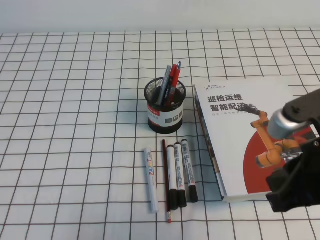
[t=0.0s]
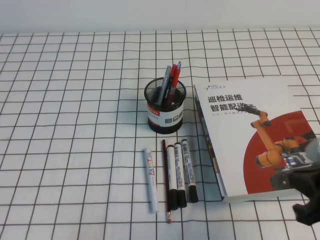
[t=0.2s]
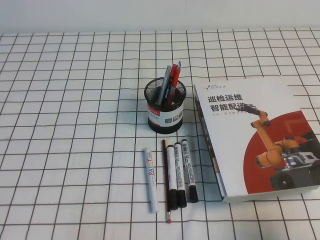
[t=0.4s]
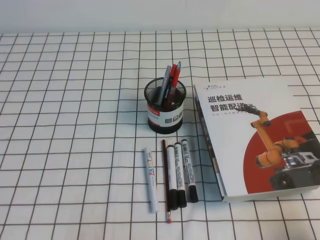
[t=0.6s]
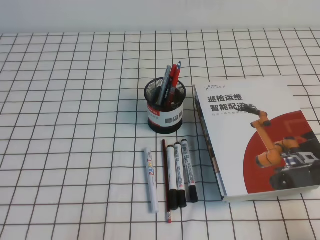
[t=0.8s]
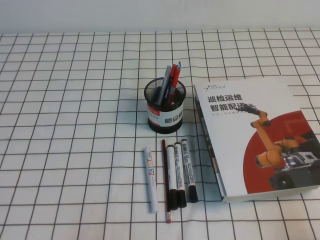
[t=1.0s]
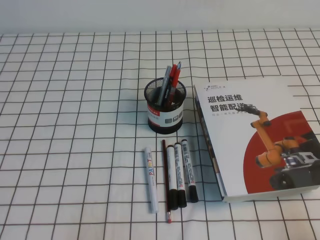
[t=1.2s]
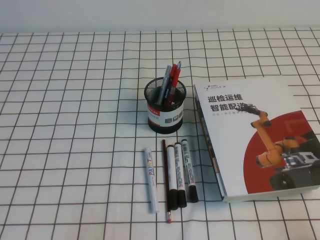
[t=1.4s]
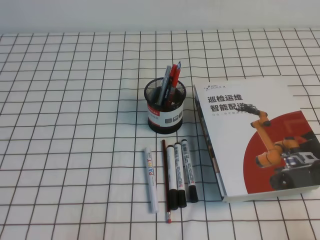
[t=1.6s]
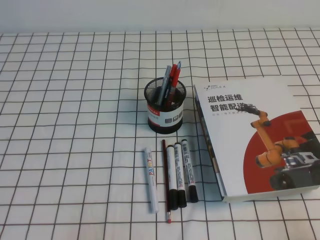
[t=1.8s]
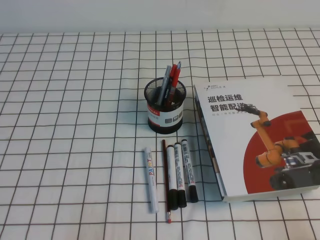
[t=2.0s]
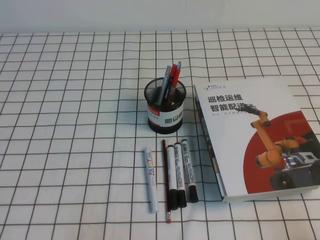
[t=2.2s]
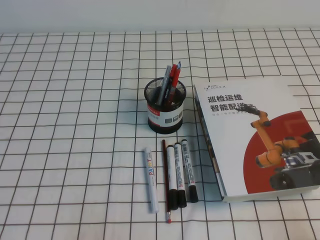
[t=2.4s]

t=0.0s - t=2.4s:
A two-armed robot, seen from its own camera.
Step, t=0.0s - t=2.4s: Pick up the pen from the pen holder.
t=0.0s - t=1.2s: The right gripper shifts approximately 20 cm downward, to the right and backward.
